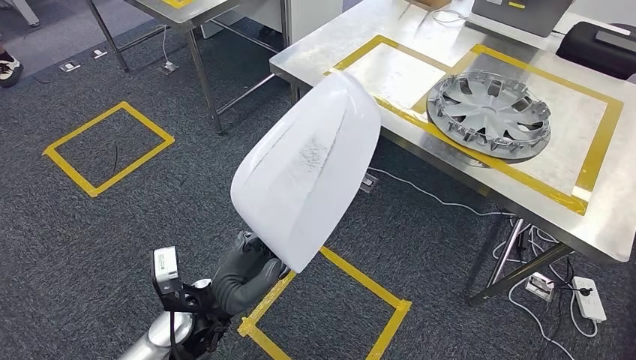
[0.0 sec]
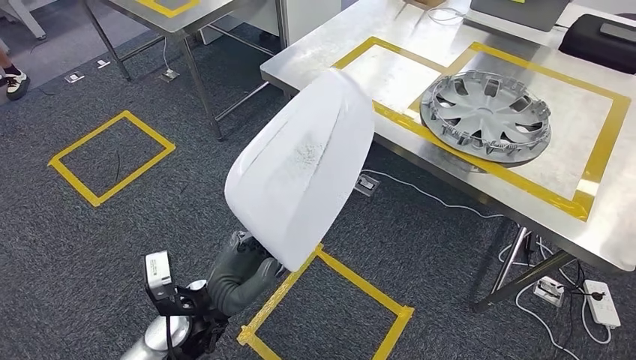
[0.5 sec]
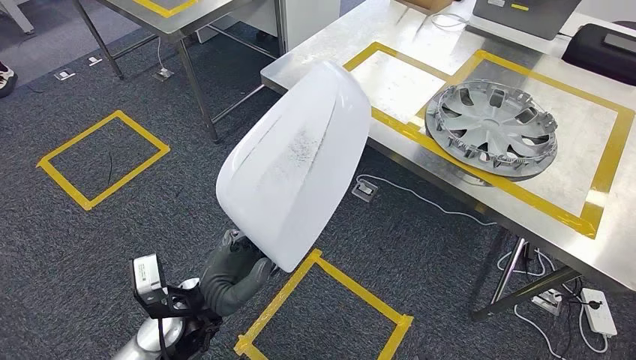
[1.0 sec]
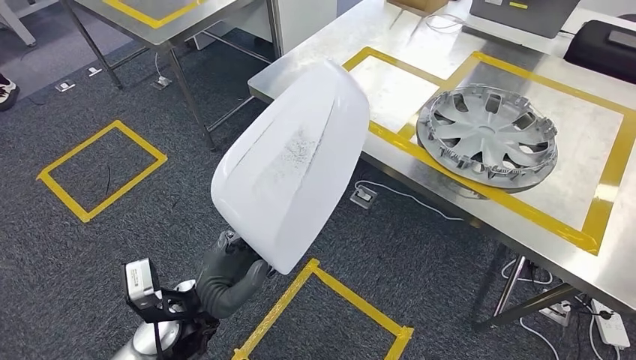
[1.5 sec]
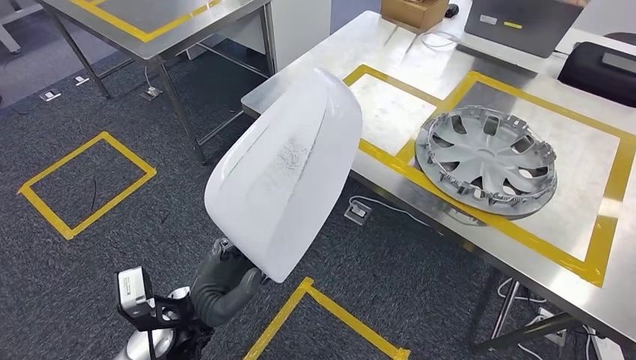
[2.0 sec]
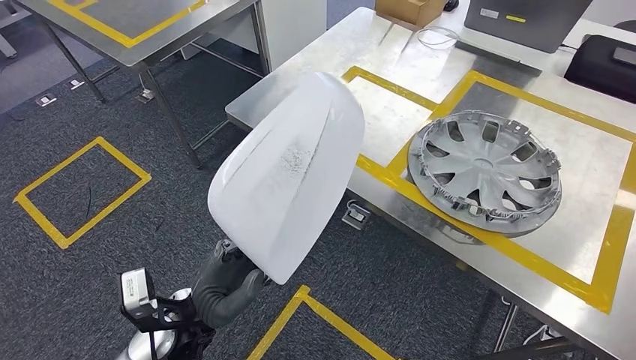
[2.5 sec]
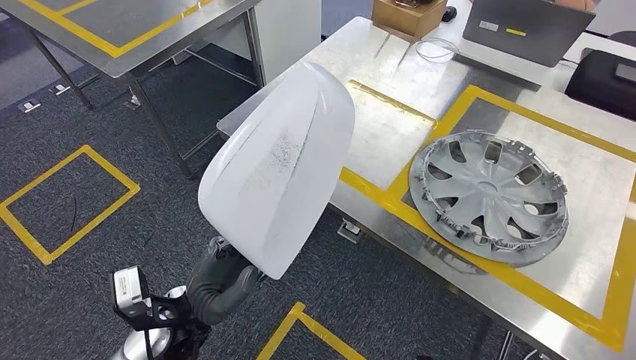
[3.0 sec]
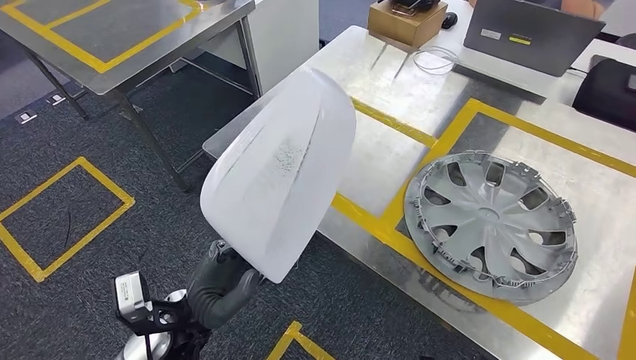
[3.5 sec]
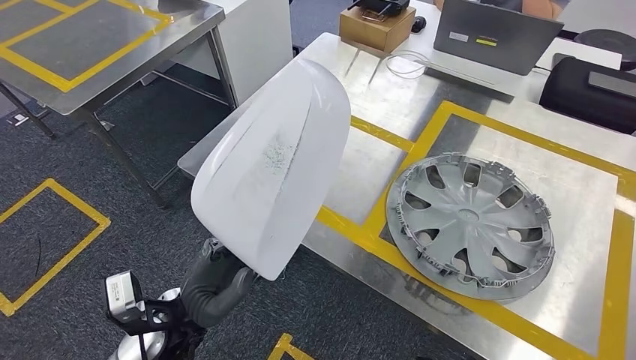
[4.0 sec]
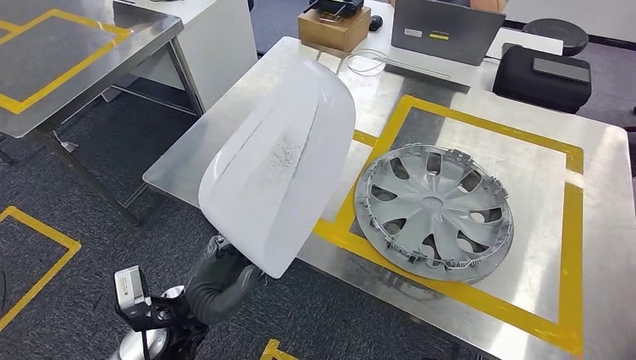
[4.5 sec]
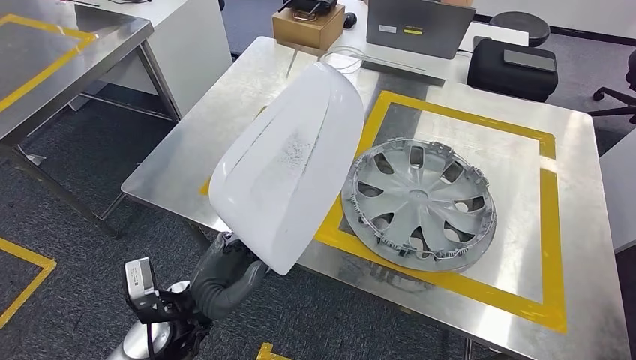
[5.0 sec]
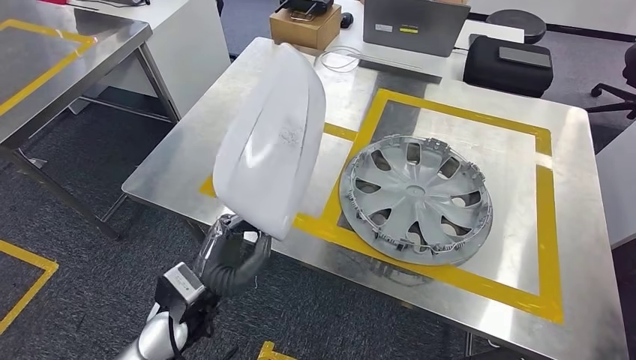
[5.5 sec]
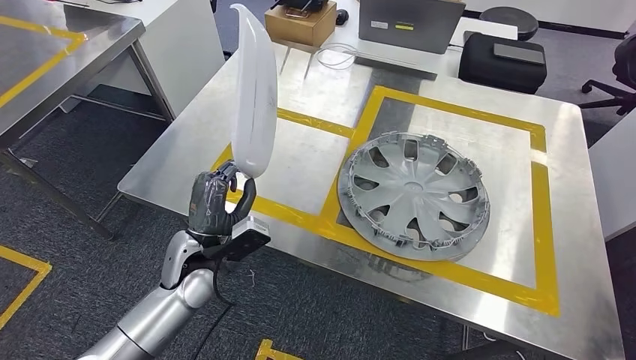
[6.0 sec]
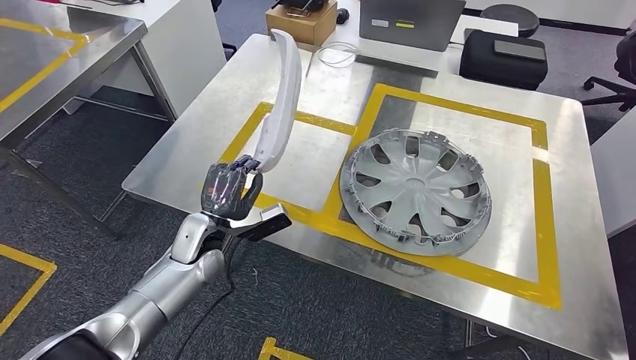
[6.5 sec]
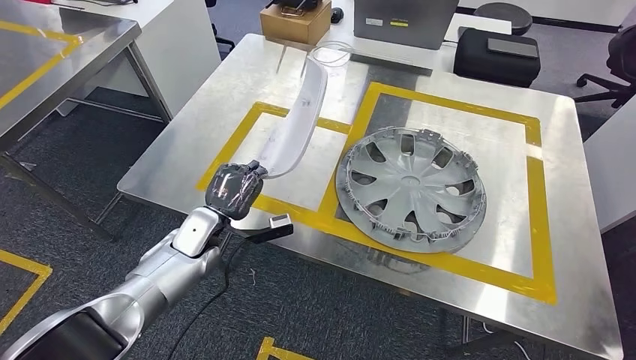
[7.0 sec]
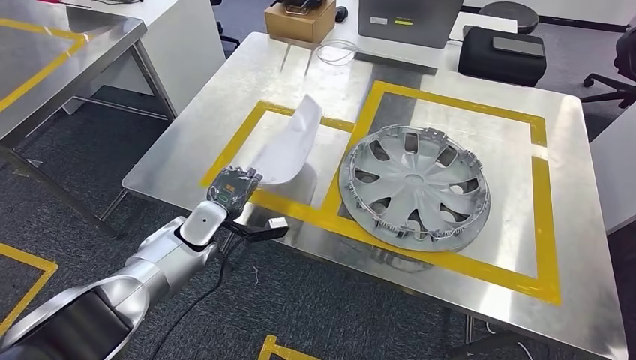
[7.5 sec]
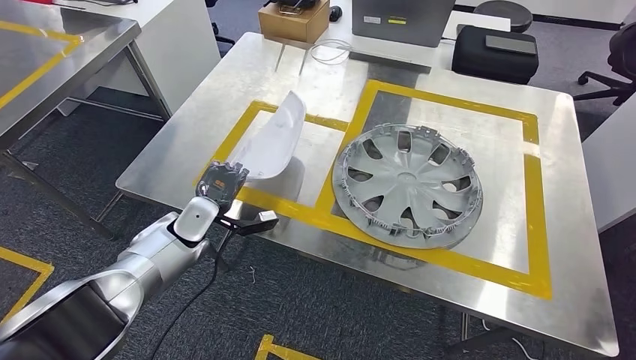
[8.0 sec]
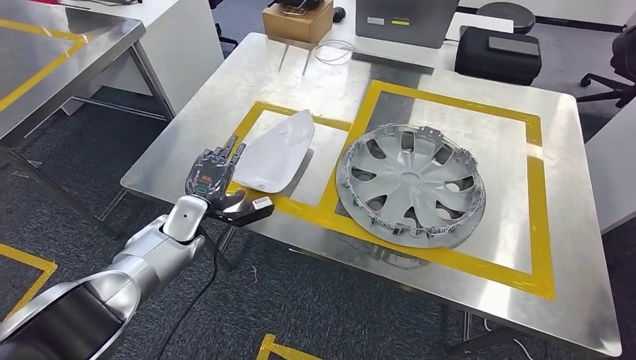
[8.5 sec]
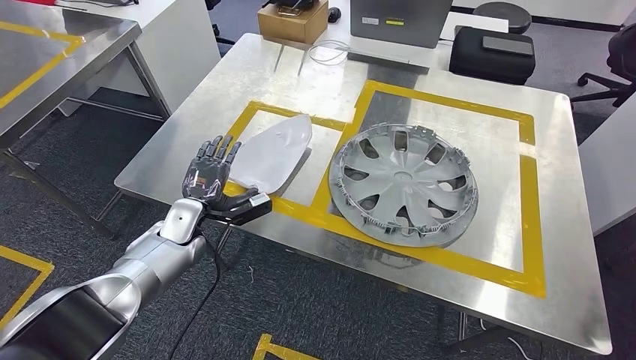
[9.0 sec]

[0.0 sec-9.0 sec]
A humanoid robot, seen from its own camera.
Step, 0.0 sec to 3.5 sec: Move the small parts to the workbench.

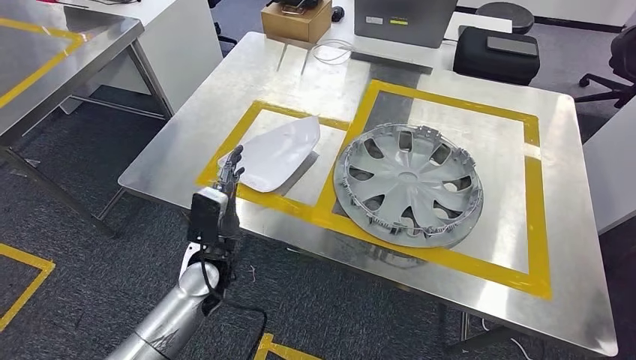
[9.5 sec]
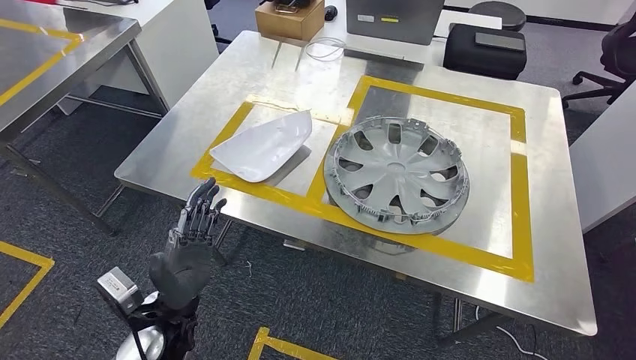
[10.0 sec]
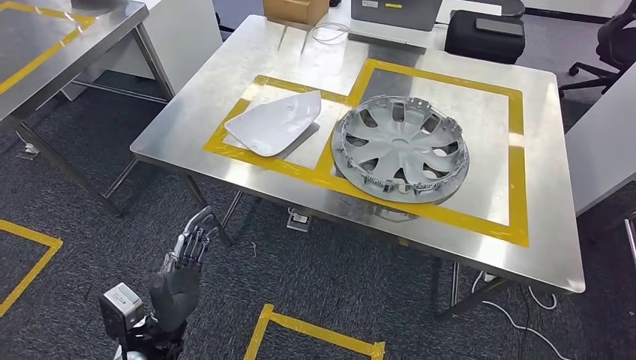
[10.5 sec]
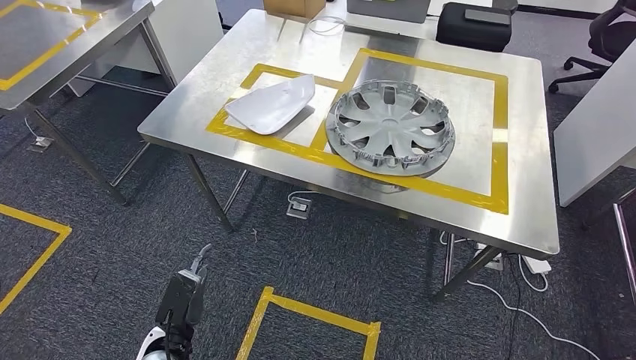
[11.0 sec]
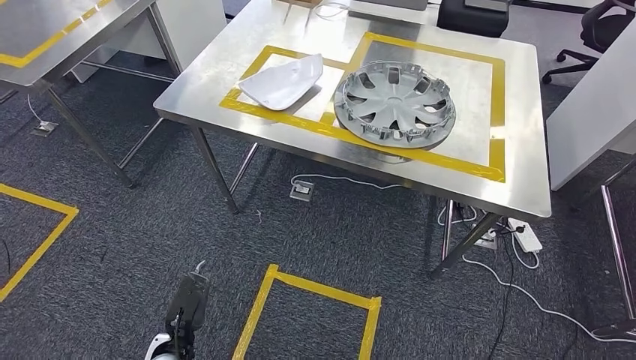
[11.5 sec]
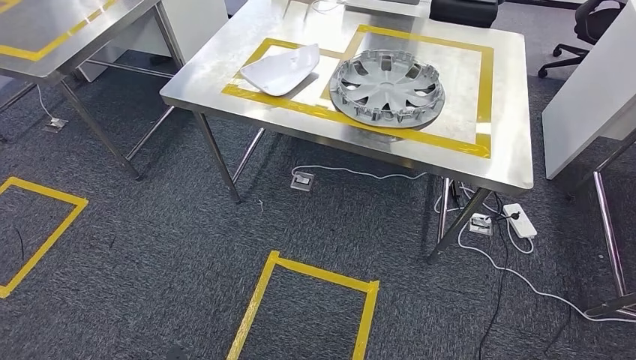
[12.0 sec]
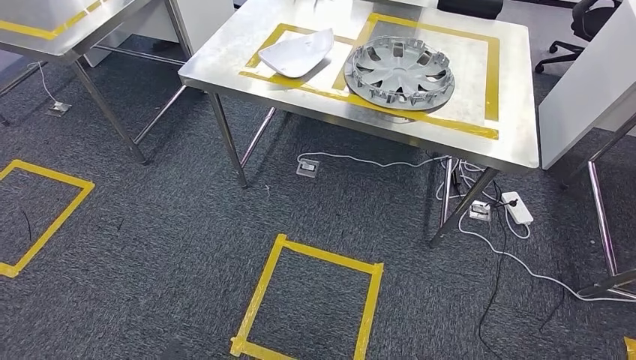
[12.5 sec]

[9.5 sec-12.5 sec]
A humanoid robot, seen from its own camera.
Step, 10.0 sec to 12.5 sec: Move to the initial position at the workbench.
